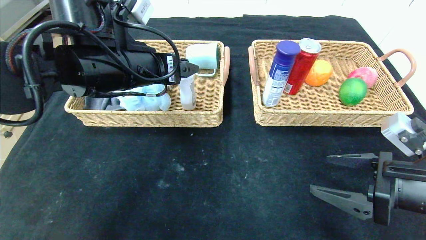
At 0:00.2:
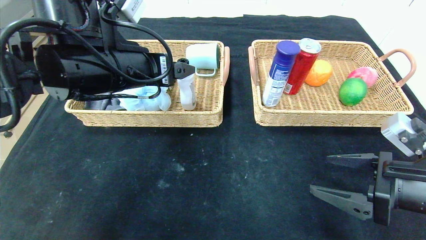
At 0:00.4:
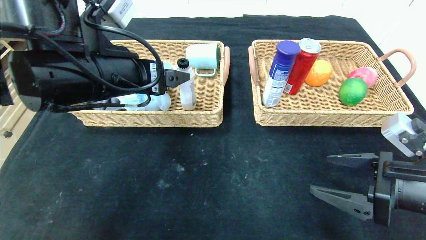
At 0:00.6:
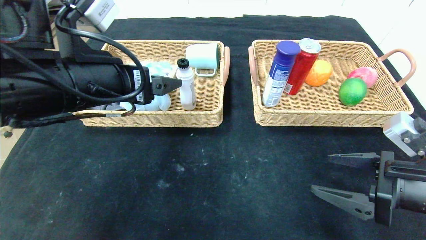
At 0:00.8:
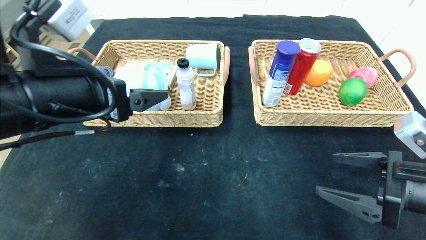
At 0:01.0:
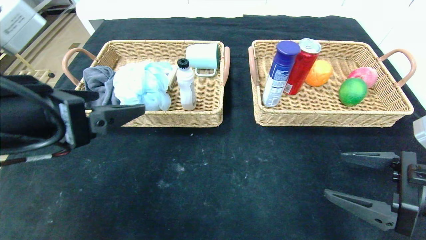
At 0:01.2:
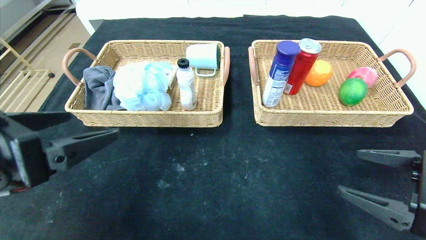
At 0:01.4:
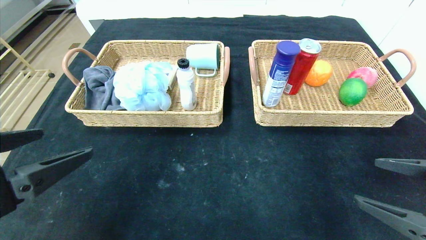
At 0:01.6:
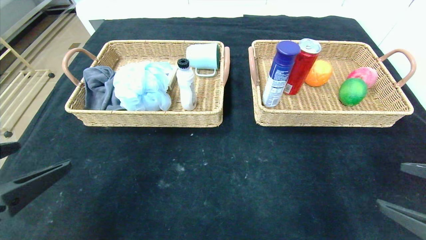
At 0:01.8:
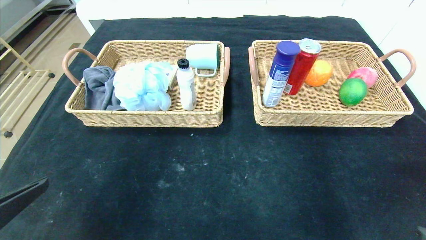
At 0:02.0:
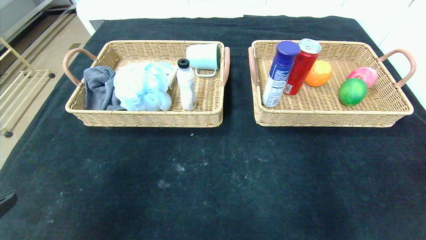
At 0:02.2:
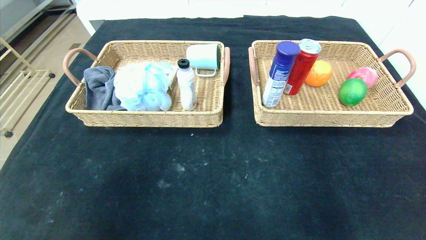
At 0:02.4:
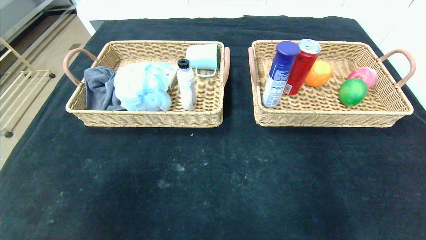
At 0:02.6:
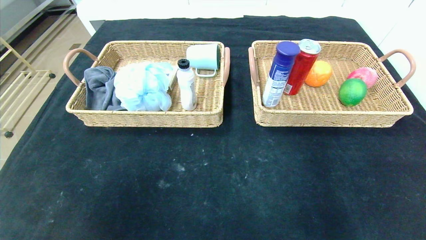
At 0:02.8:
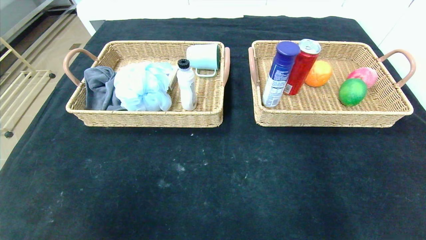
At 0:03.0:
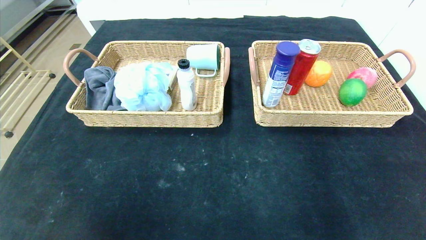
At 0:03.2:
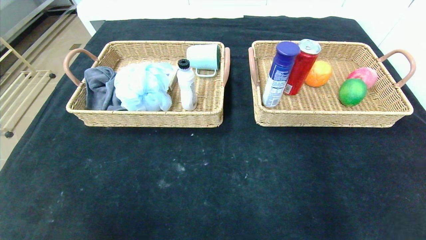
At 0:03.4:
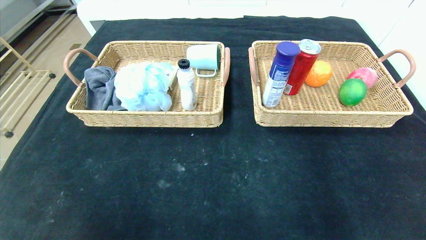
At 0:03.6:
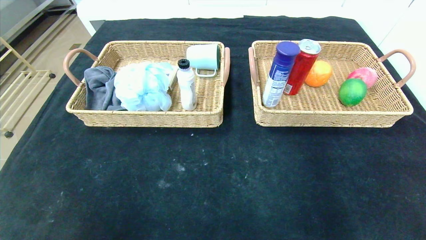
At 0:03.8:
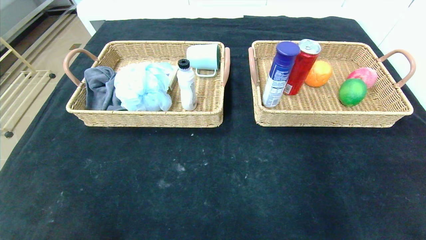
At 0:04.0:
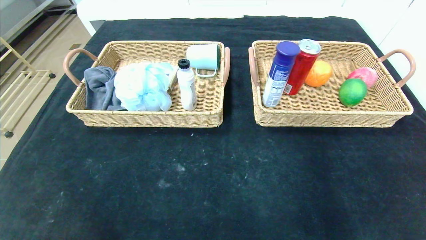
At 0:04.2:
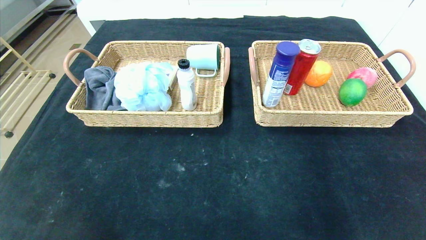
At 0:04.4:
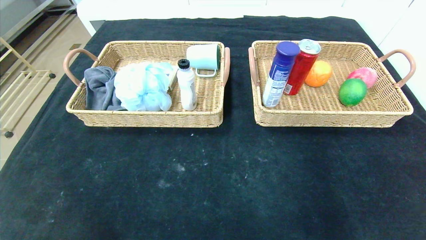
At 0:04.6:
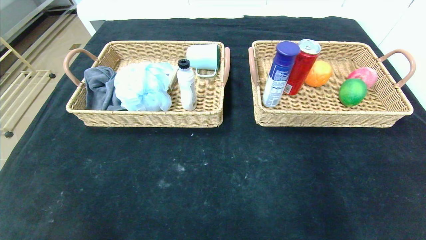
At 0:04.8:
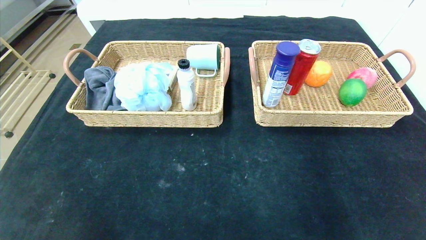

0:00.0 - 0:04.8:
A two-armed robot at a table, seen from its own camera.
0:00.0 - 0:01.6: The right gripper is displaced backward by about 10 cm, while the left gripper shifts roughly 25 cm backward and to the left.
0:01.6 - 0:03.2: The right gripper moves backward, approximately 20 cm, while the left gripper moves backward and downward, about 20 cm.

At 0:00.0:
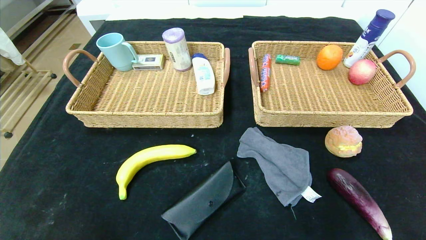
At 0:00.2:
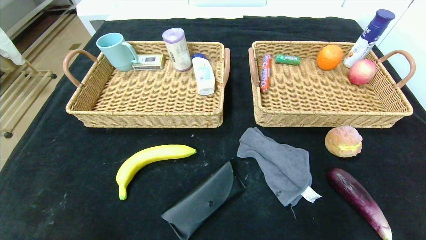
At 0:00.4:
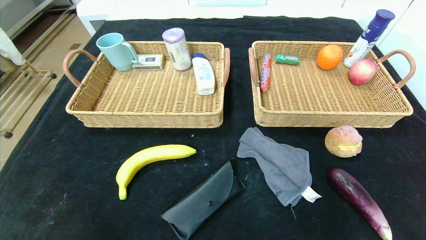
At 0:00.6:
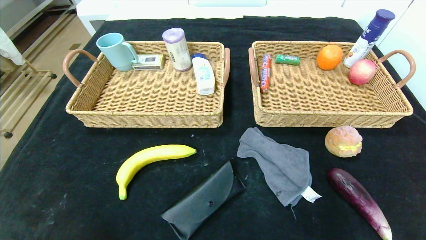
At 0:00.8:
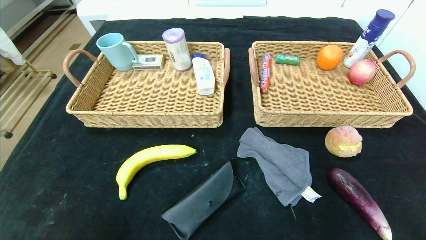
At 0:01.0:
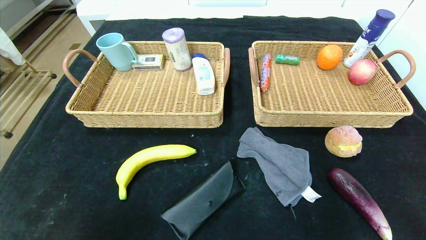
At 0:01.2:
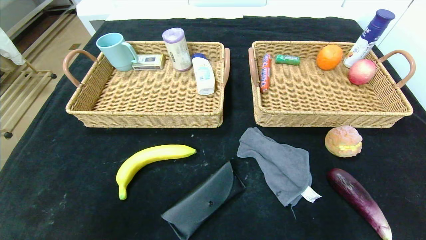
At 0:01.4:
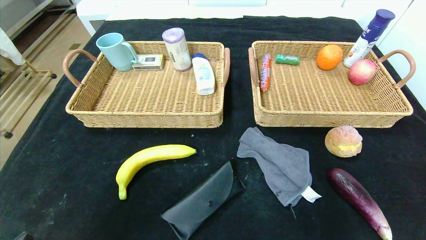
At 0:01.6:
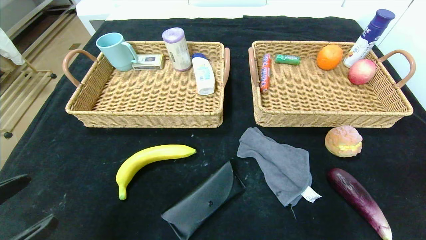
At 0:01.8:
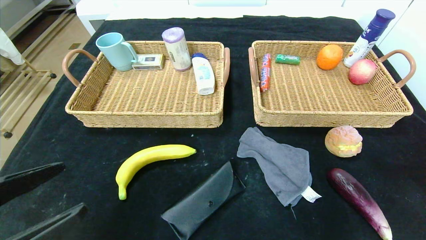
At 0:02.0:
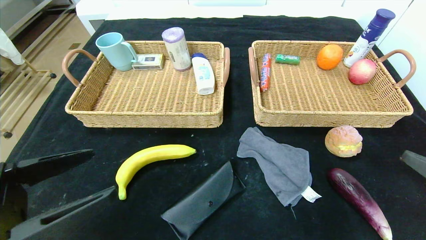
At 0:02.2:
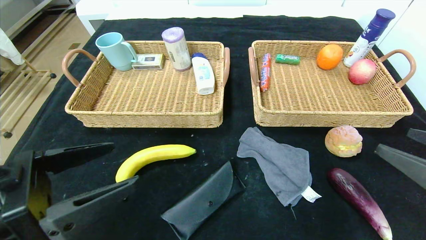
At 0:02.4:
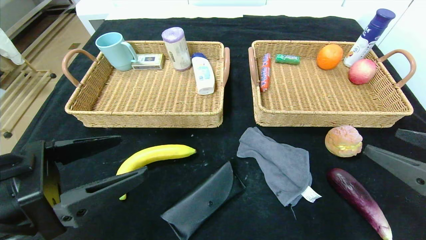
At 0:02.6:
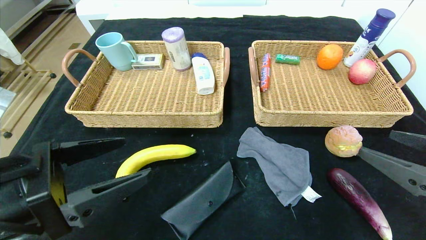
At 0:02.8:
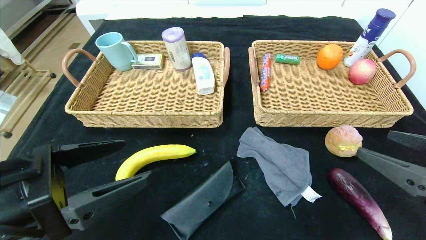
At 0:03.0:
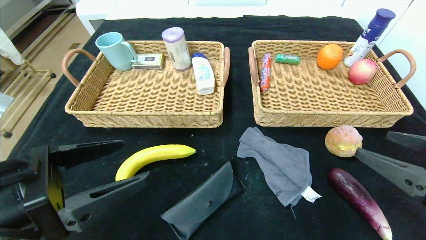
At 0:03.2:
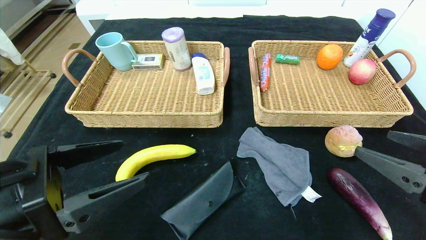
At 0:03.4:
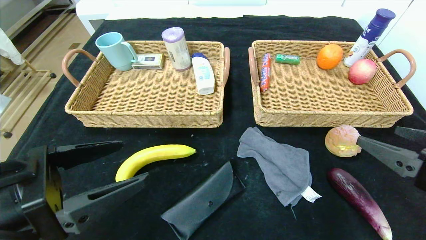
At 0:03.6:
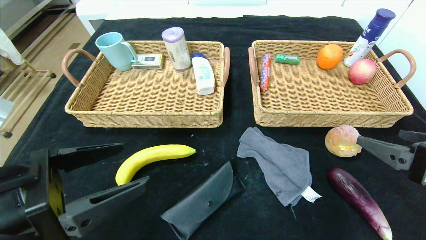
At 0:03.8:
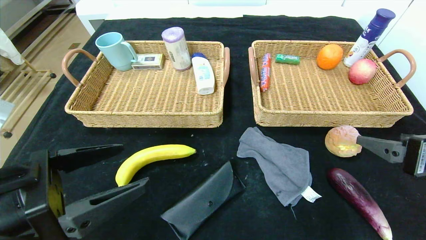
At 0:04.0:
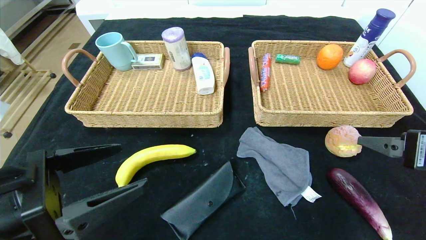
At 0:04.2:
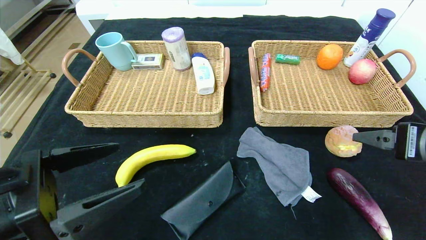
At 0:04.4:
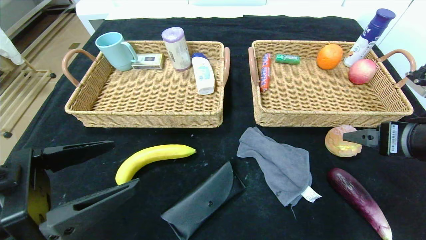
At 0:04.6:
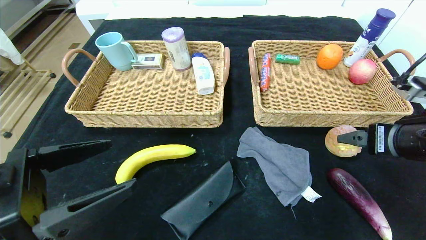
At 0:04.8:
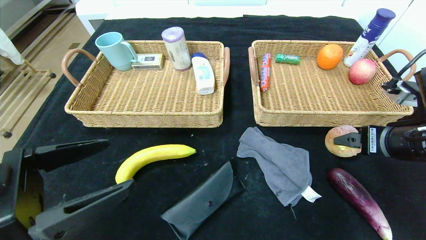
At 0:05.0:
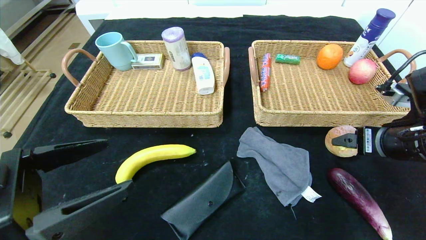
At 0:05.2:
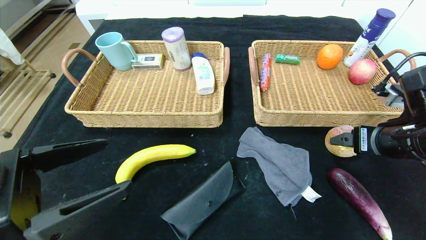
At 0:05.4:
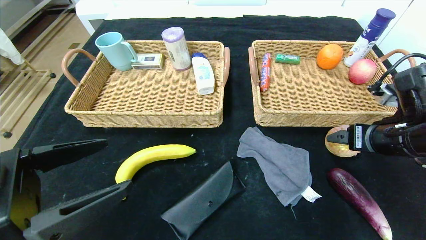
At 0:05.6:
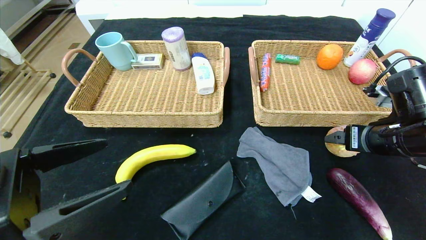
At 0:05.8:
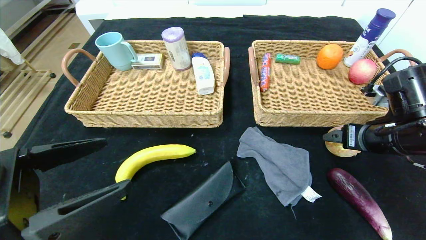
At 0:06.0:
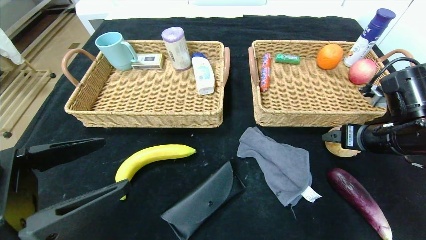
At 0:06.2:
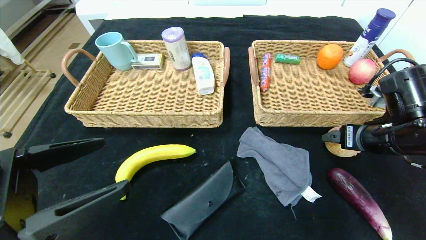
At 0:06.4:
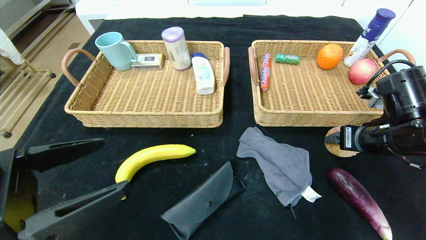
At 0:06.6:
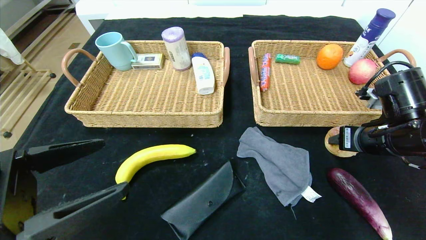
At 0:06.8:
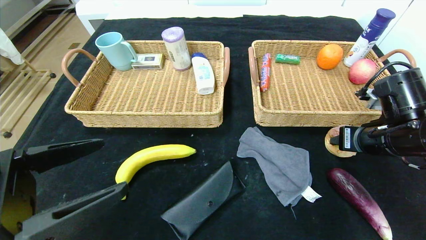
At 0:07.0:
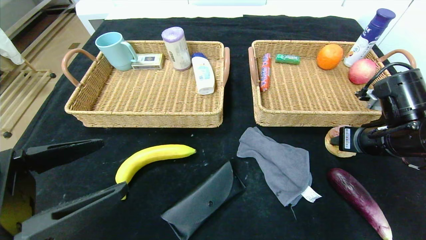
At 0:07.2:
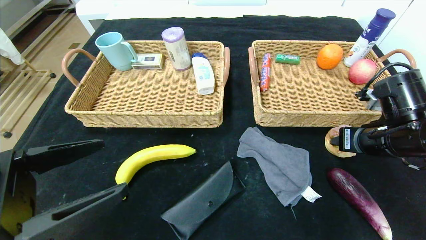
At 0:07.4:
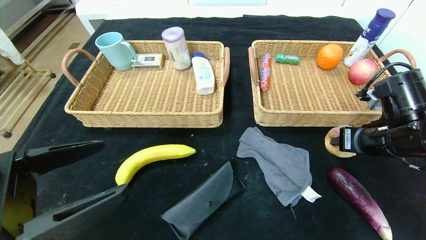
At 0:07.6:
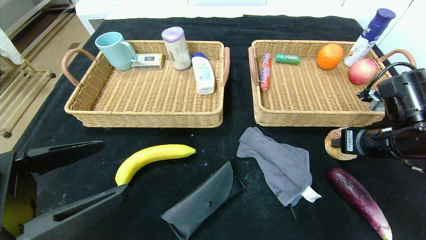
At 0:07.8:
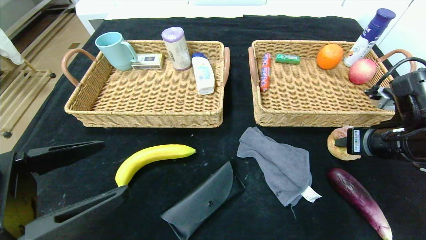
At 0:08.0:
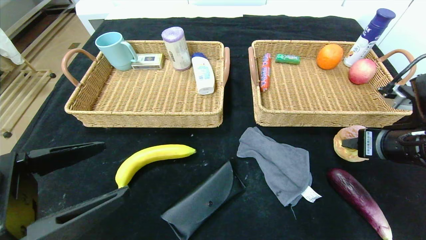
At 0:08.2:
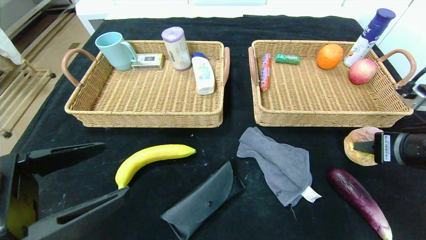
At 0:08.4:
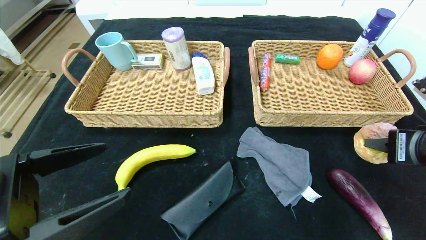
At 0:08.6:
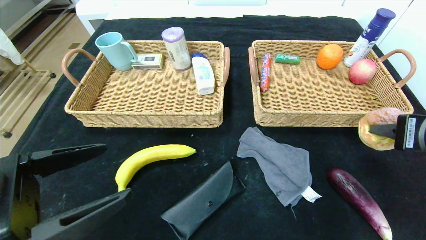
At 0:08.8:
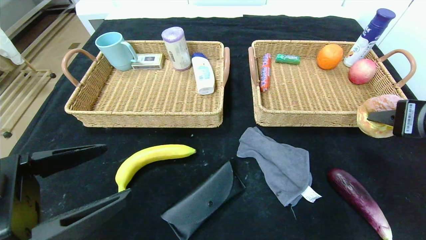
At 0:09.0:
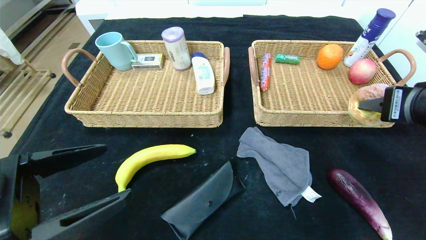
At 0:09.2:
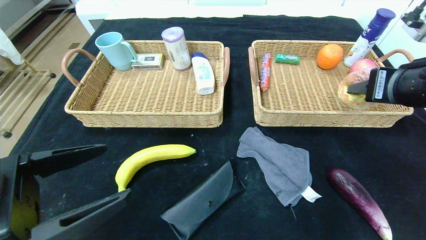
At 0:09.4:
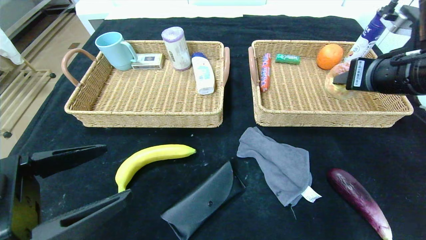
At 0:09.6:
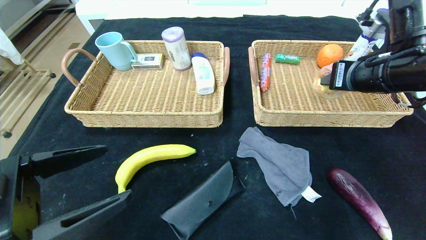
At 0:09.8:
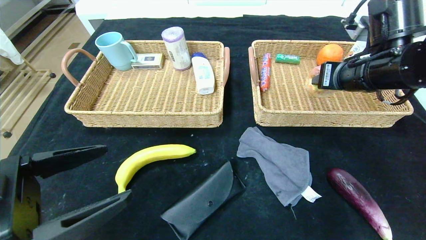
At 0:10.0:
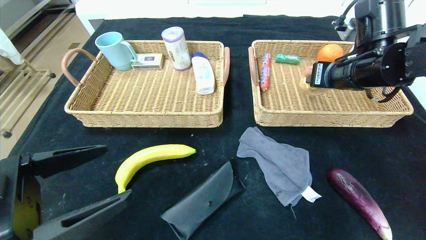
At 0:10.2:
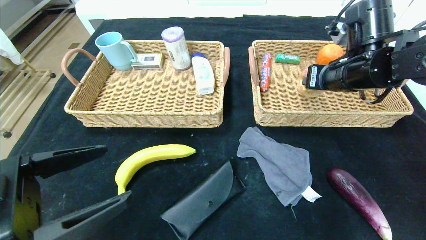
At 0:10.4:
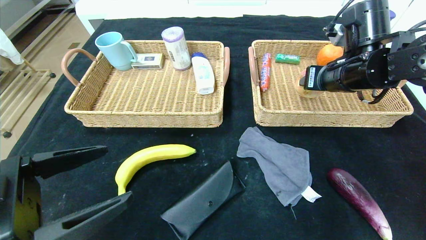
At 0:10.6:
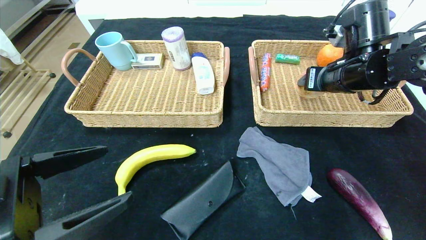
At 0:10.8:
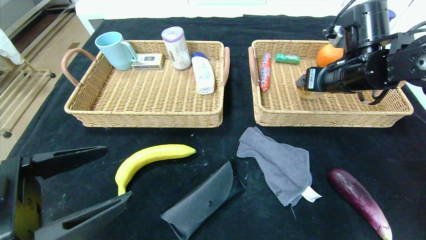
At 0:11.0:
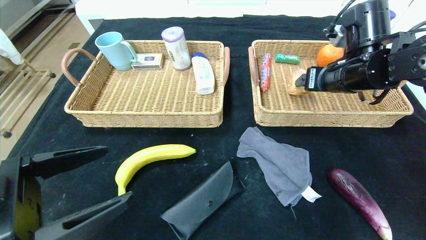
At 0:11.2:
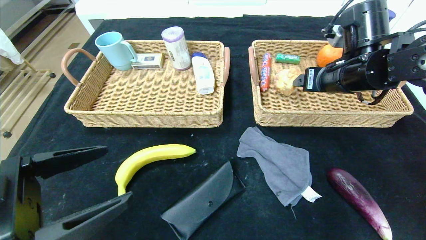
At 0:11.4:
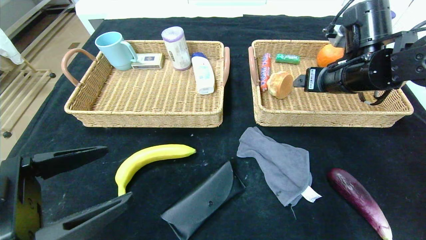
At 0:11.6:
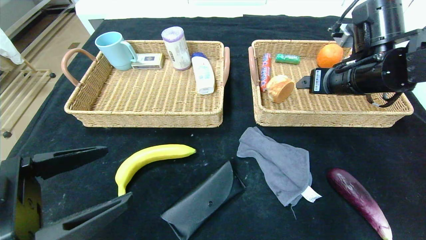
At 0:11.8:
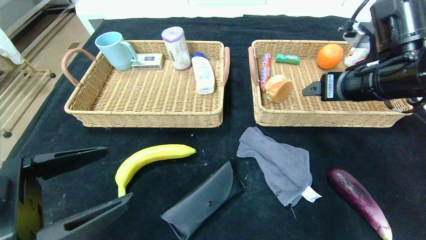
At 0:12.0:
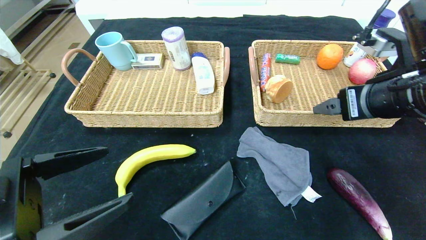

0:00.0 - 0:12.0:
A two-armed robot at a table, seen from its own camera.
Step, 0:00.0 - 0:11.0: Grasp the round bread and put it in the right basket.
0:00.0 - 0:01.6: The left gripper is displaced upward and forward by approximately 10 cm.
0:01.6 - 0:03.0: The right gripper is displaced forward and to the left by approximately 10 cm; the left gripper shifts some 10 cm forward.
0:03.0 - 0:04.4: The right gripper moves forward, some 5 cm.
0:04.4 - 0:06.0: The right gripper is displaced forward by about 5 cm.
0:06.0 - 0:07.6: The right gripper closes.
0:07.6 - 0:09.0: The right gripper goes about 10 cm upward and backward.
0:09.0 - 0:10.4: The right gripper goes some 15 cm forward.
0:10.4 - 0:12.0: The right gripper travels backward by some 10 cm, and opens.
